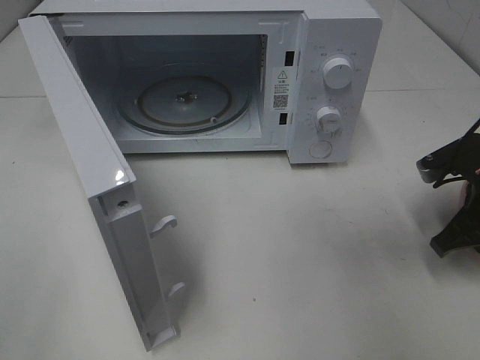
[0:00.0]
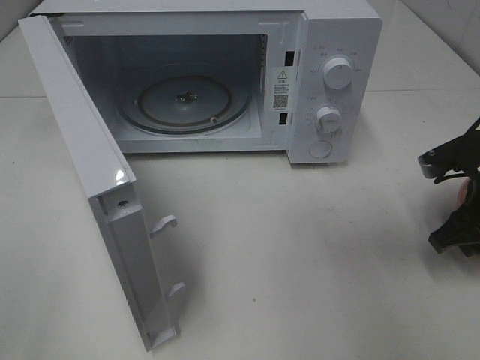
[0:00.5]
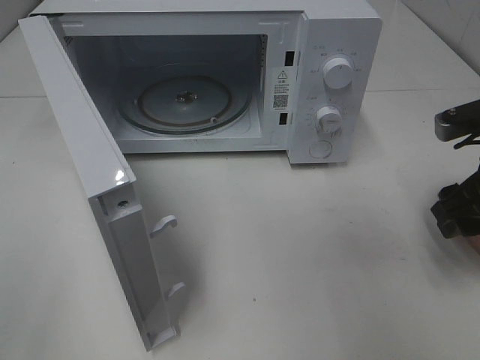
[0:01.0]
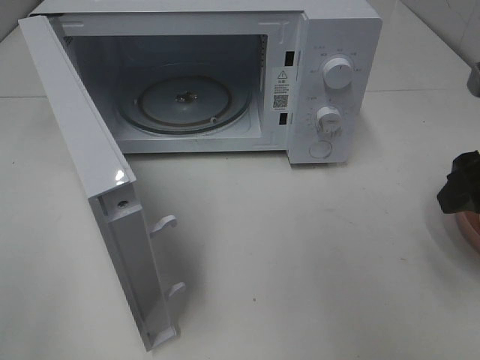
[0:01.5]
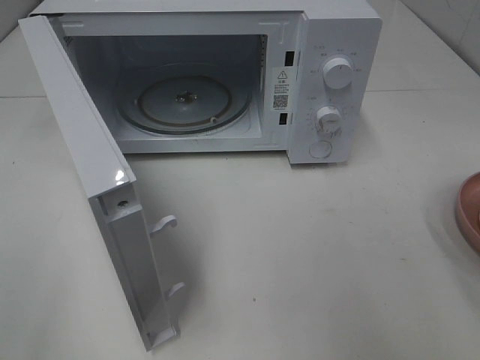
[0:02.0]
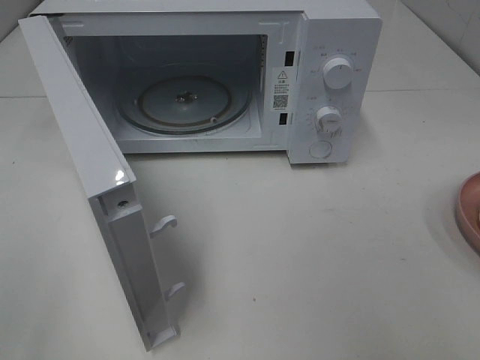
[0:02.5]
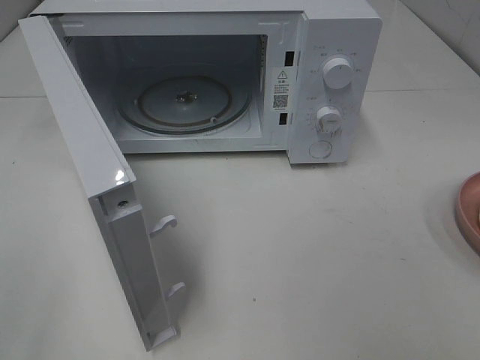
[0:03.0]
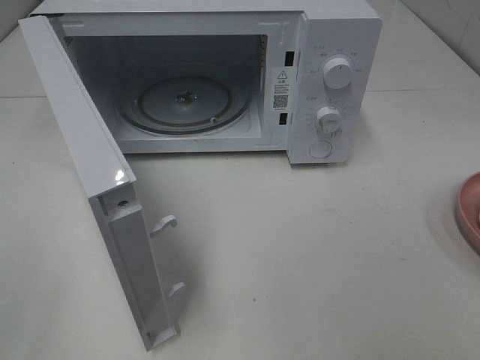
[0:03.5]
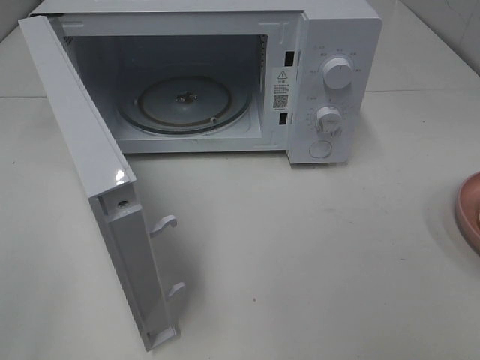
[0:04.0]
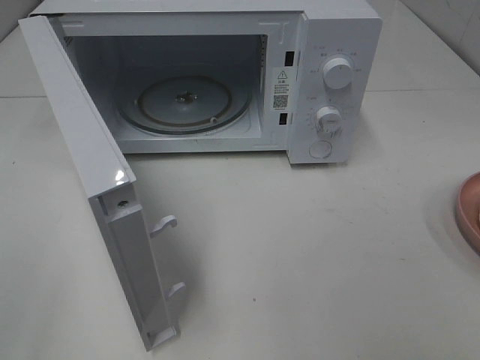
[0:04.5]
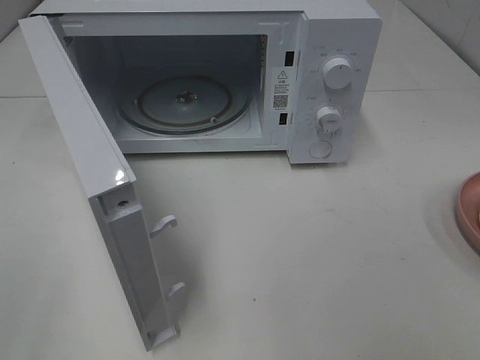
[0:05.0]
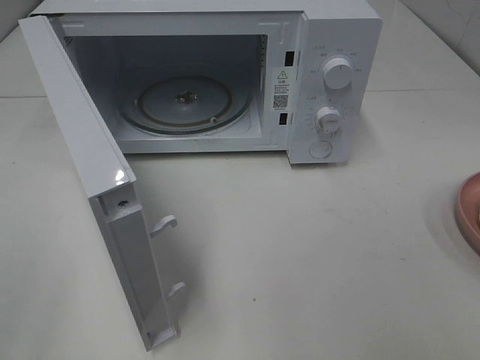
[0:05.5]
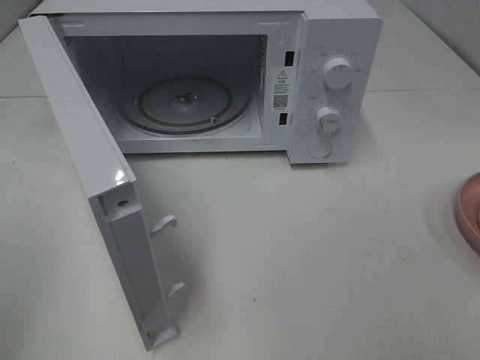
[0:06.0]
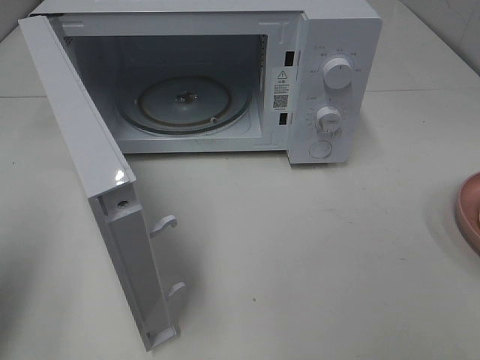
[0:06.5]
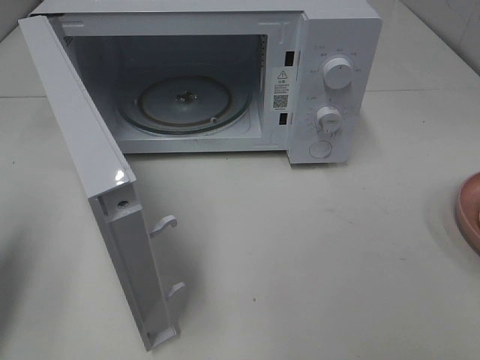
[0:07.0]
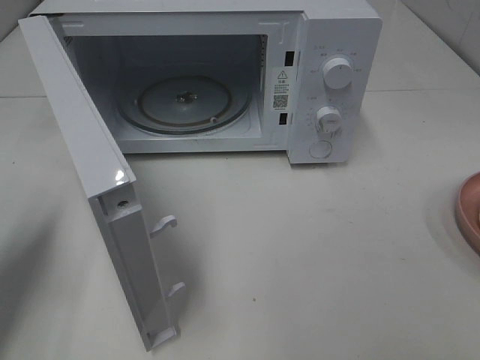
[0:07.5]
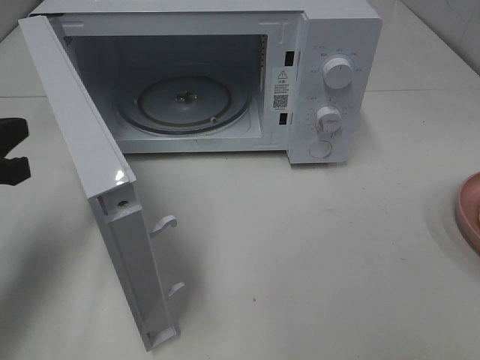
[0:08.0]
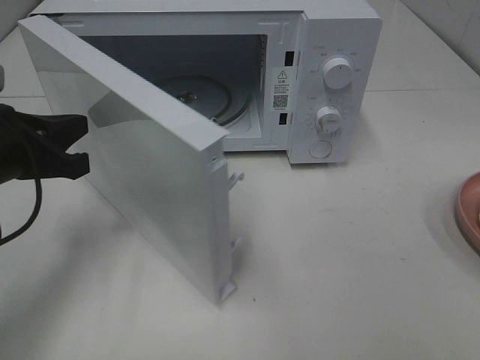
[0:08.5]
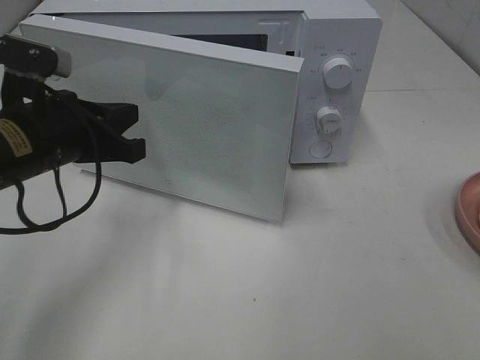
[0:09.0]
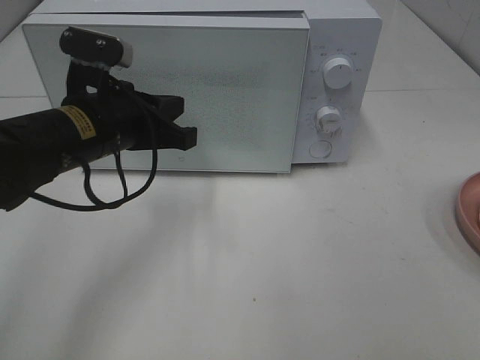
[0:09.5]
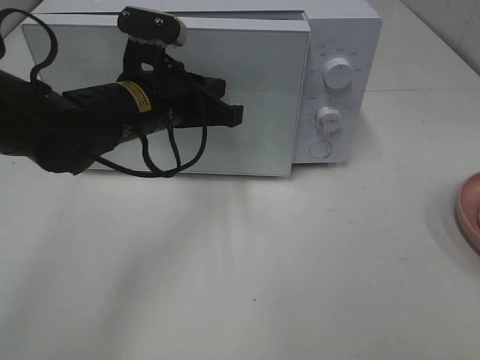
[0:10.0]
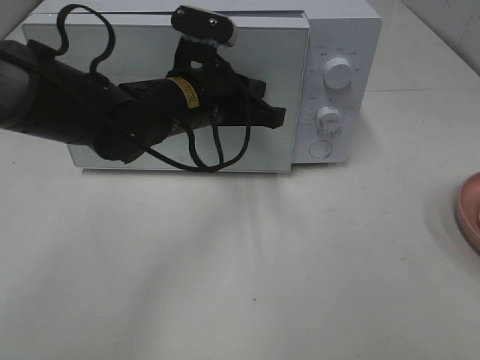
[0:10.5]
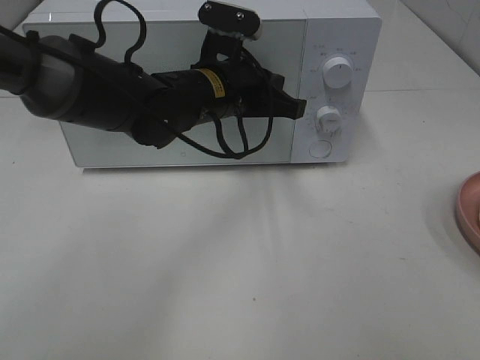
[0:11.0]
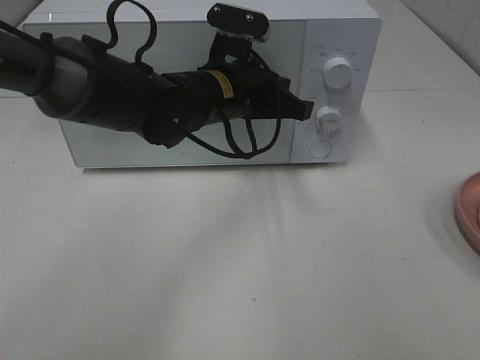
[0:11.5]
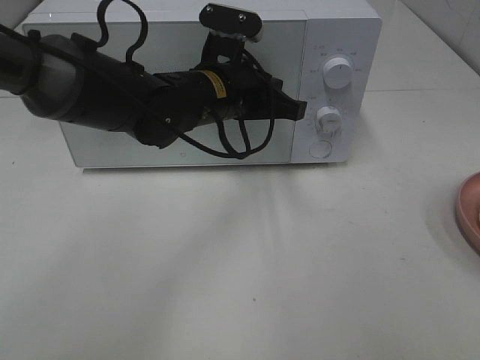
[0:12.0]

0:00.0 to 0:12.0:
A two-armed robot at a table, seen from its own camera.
Task of the whole recording: Heat Sandwich.
0:00.0 to 0:02.0: The right gripper travels upward and backward by about 20 cm, and opens its fingers.
0:06.0 to 0:08.0: The left gripper moves forward and downward, some 20 cm, and closes up.
0:08.0 to 0:10.0: The left gripper heads to the right and forward, covering approximately 20 cm.
0:10.0 to 0:12.0: The left gripper shifts some 5 cm to the right.

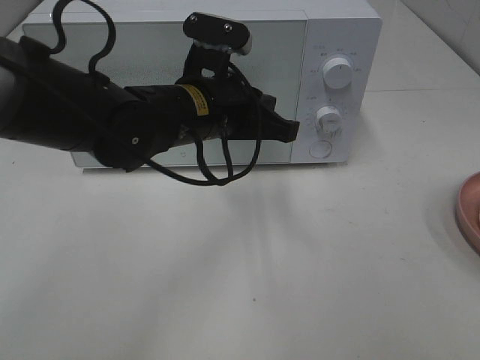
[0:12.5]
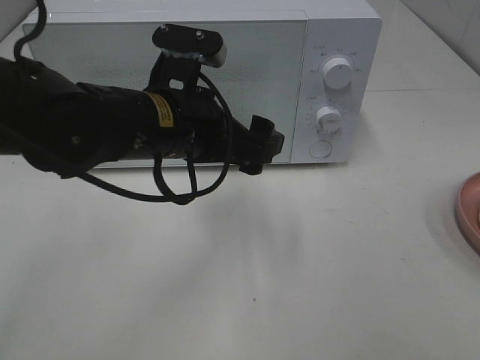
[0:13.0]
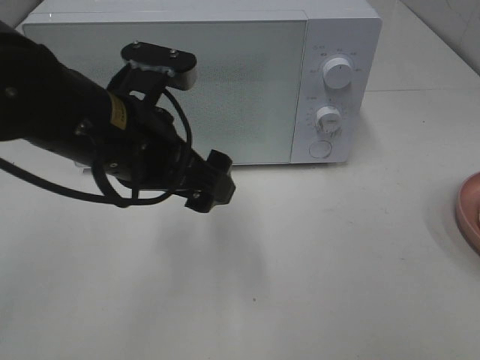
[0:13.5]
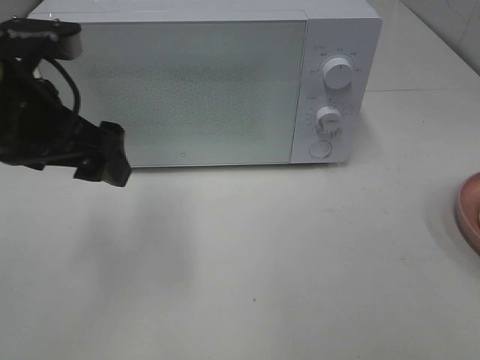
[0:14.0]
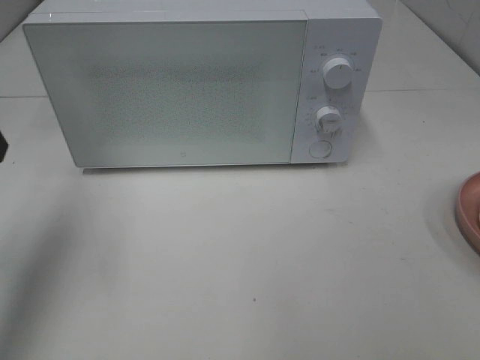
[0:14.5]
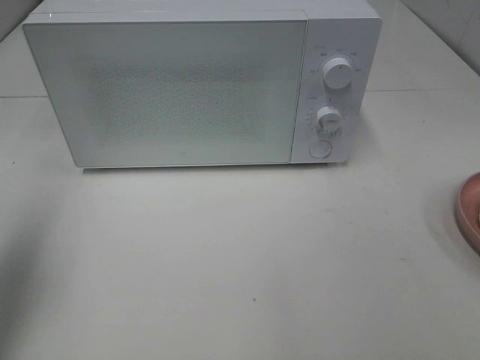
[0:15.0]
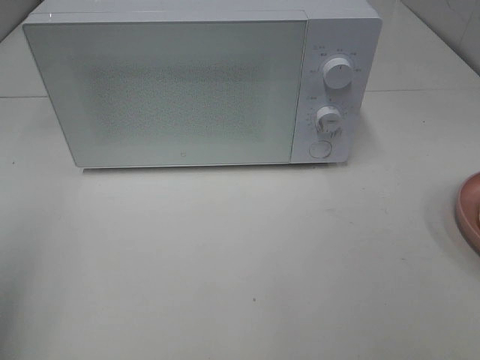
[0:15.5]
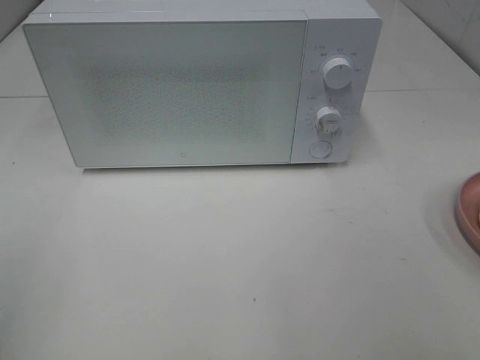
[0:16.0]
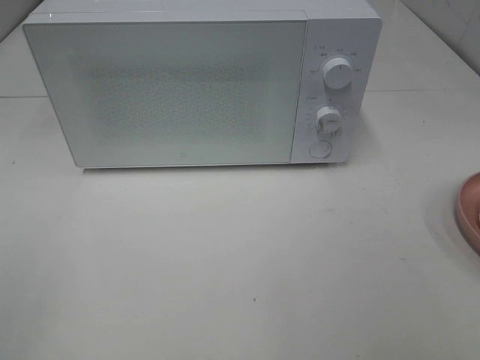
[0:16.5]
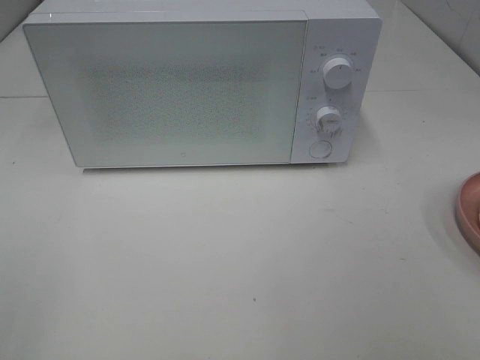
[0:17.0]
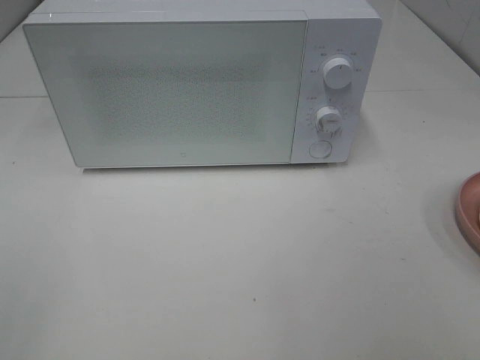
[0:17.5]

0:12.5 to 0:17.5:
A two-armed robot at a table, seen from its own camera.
Task of the whole recording: Heat Sandwich.
0:12.5 to 0:15.0: The left gripper is displaced to the left and upward by approximately 30 cm, and opens up.
0:15.0 to 0:17.5: The left gripper shifts approximately 20 cm backward.

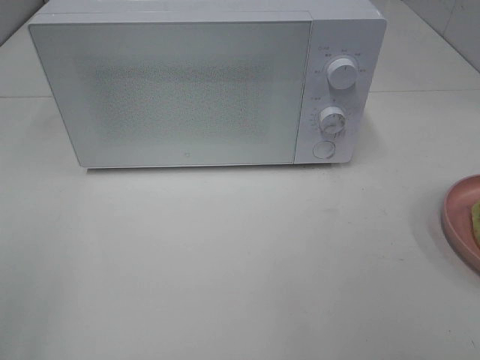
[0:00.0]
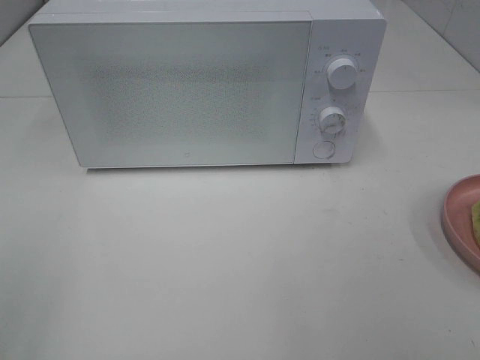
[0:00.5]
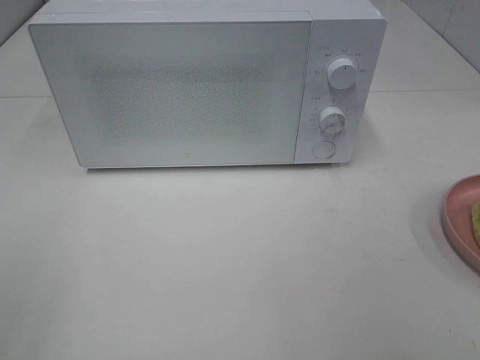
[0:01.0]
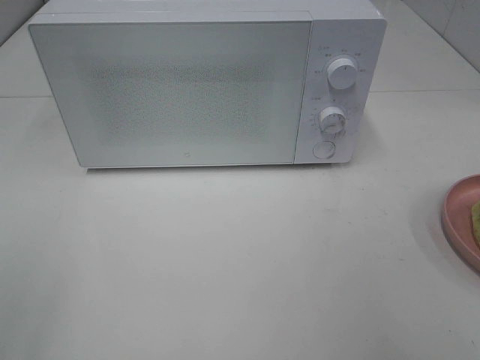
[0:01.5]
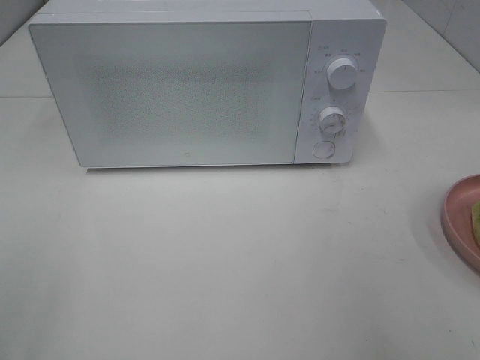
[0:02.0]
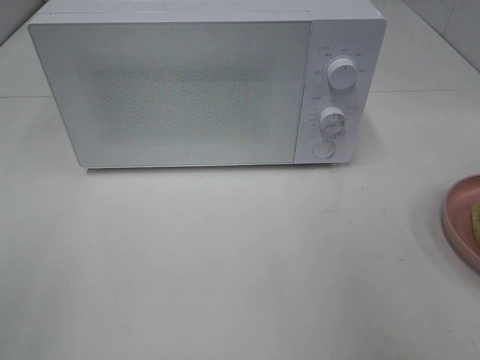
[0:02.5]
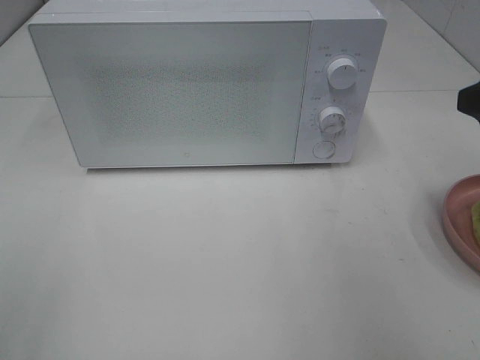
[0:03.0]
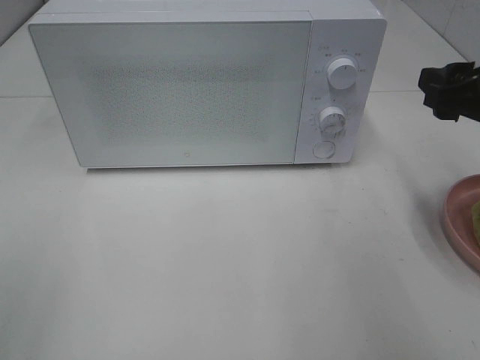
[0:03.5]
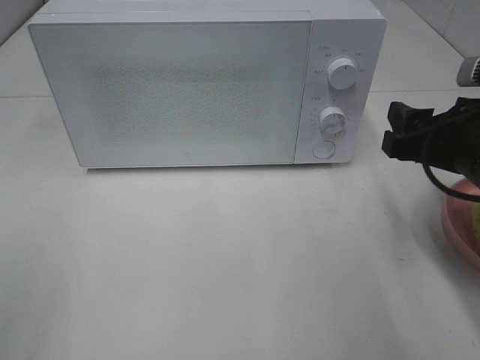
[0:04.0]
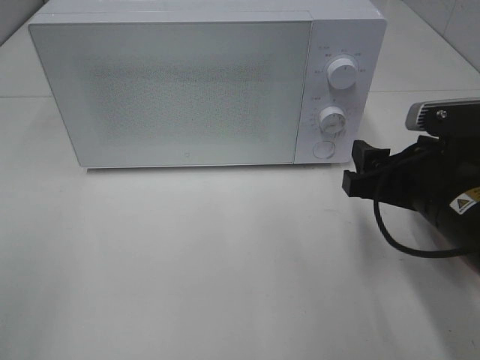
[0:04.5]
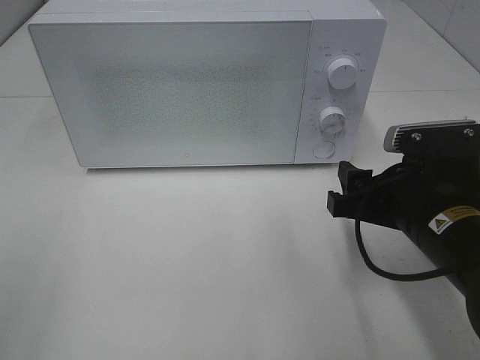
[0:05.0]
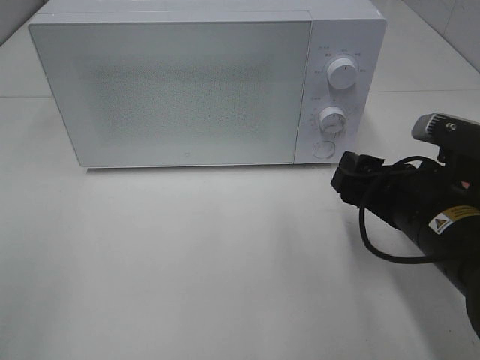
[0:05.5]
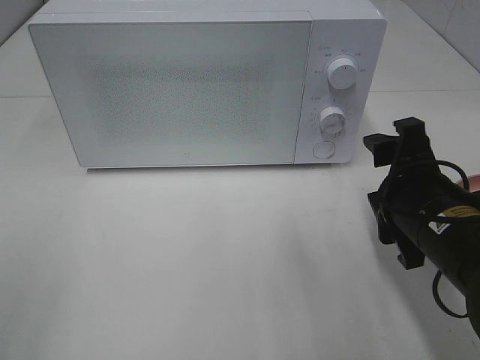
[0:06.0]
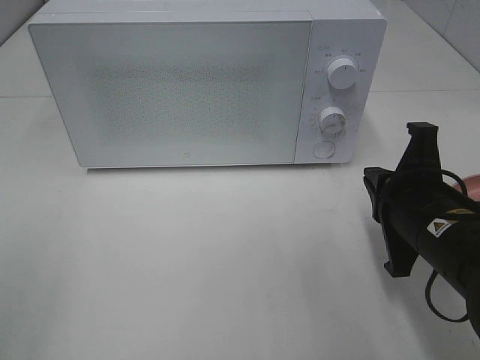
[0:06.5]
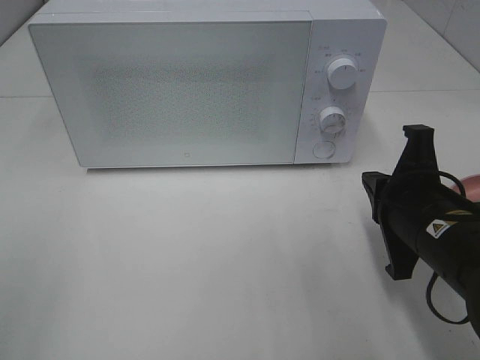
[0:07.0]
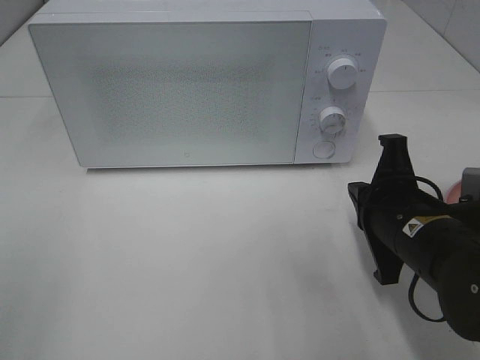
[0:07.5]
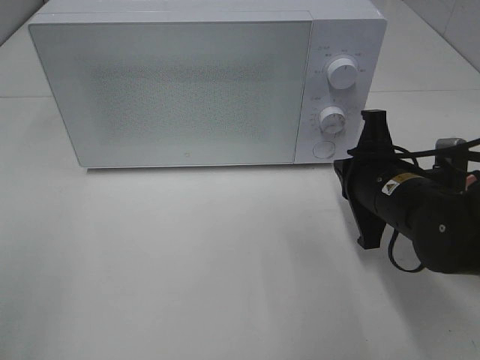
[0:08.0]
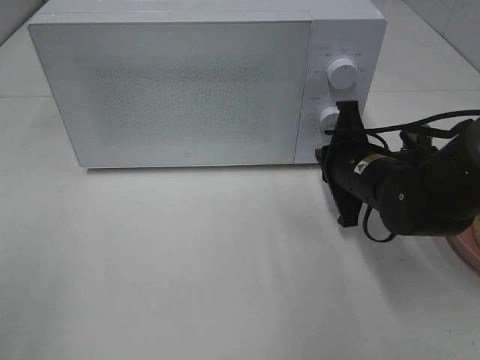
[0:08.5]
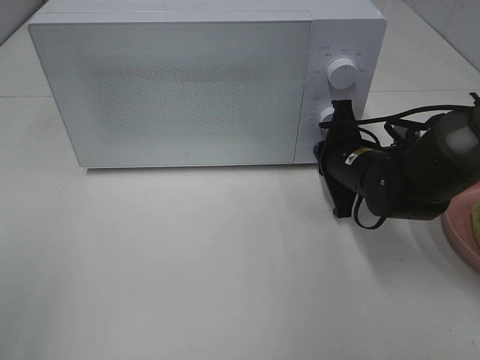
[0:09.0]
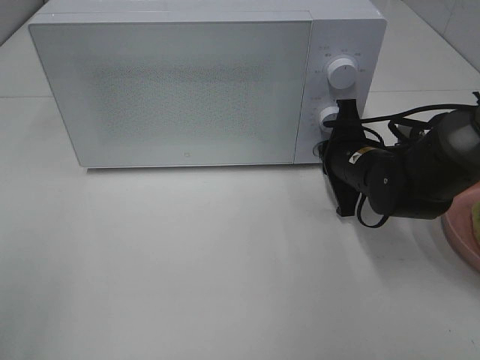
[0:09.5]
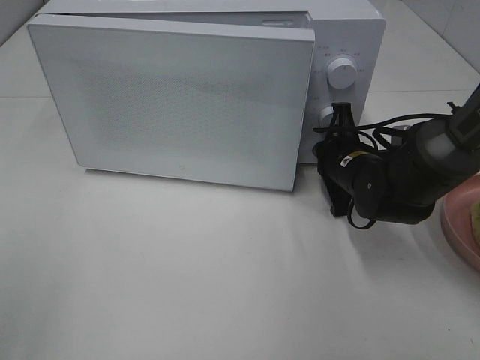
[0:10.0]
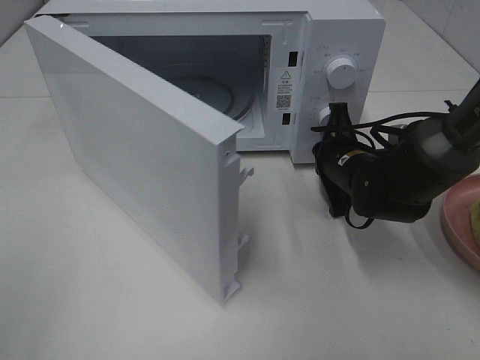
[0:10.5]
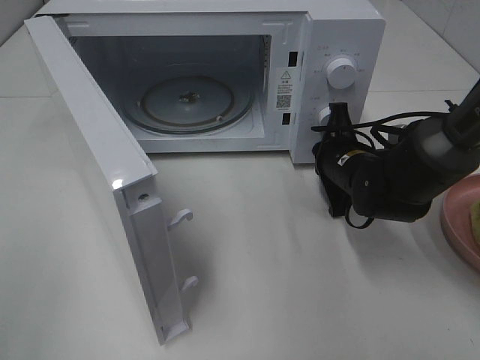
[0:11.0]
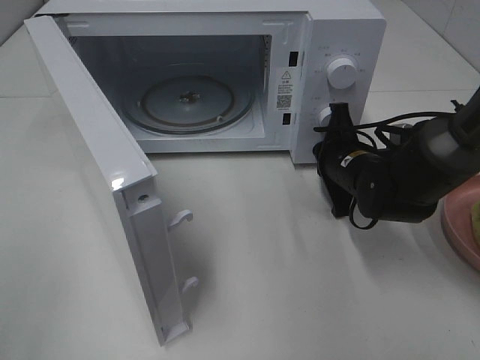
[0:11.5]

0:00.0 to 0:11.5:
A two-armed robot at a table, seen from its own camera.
Task of the whole recording: Heat Sandwich.
0:02.0 to 0:04.0: The right gripper travels downward, forward and to the left by some 15 cm.
0:04.0 to 0:06.0: The right gripper changes place by approximately 5 cm.
0:06.0 to 0:07.5: The right gripper closes its fingers.
0:07.5 to 0:09.5: The right gripper is displaced forward by some 15 cm.
